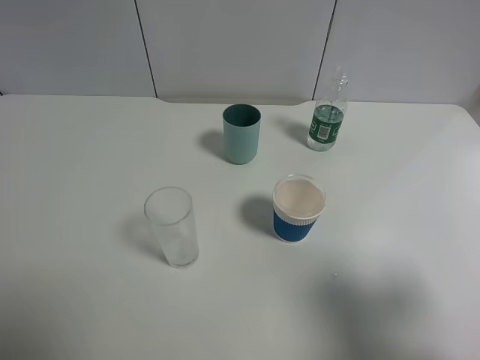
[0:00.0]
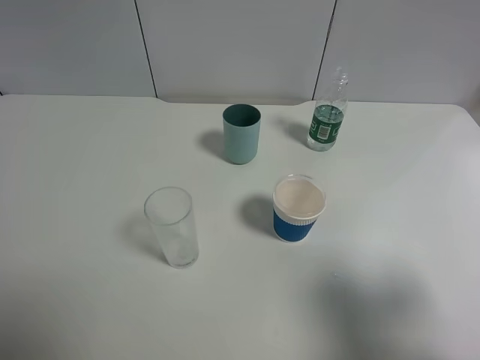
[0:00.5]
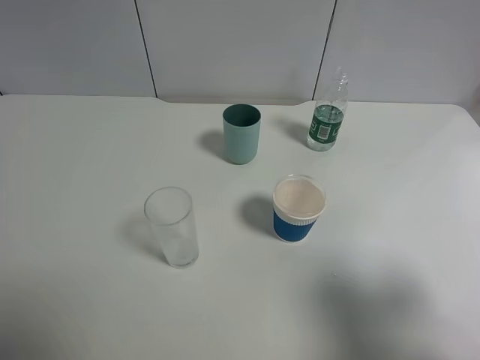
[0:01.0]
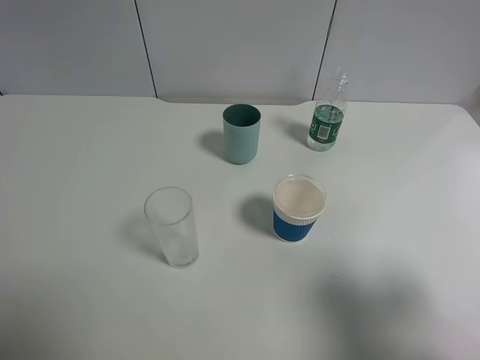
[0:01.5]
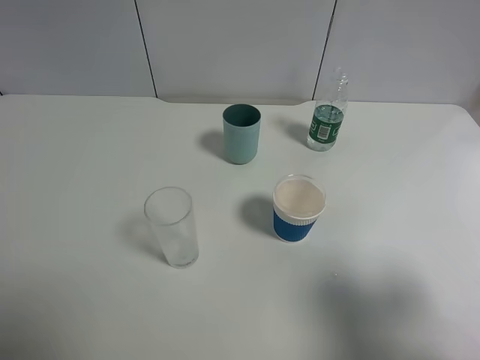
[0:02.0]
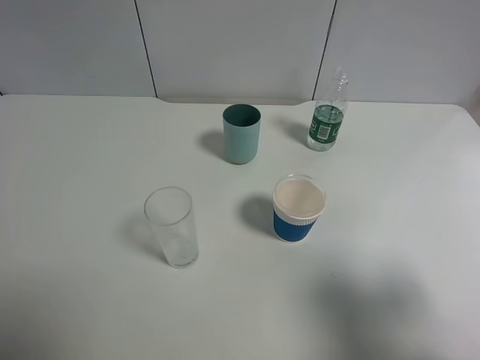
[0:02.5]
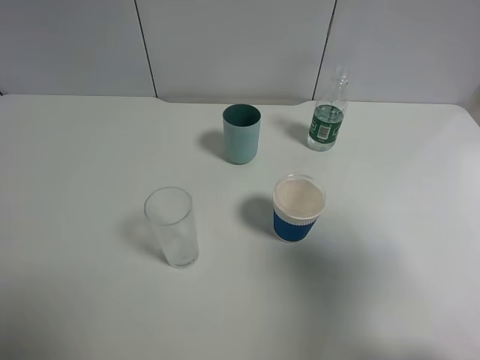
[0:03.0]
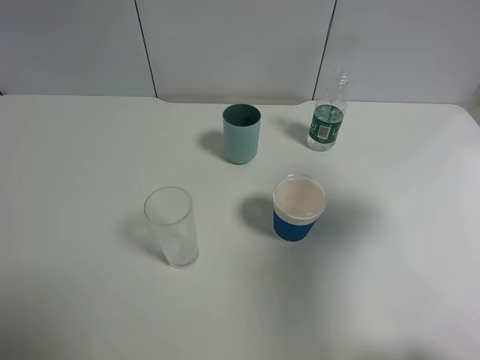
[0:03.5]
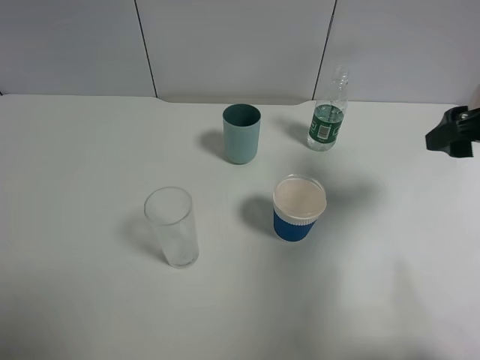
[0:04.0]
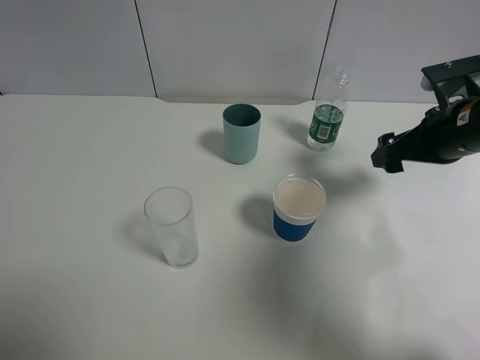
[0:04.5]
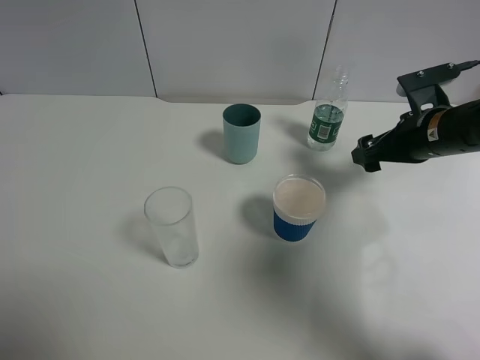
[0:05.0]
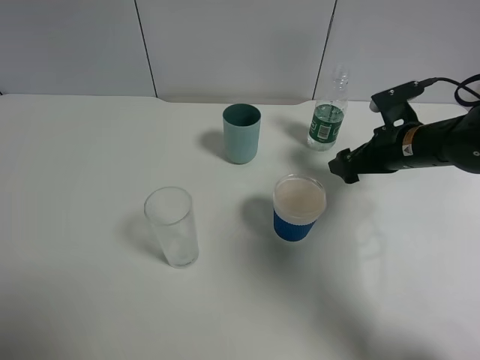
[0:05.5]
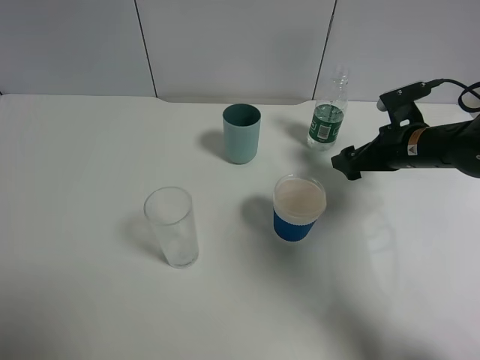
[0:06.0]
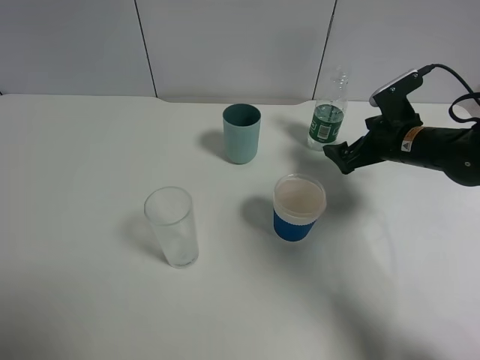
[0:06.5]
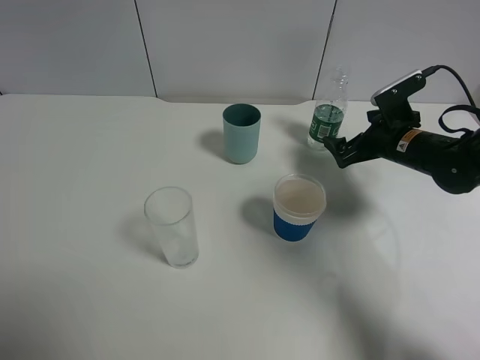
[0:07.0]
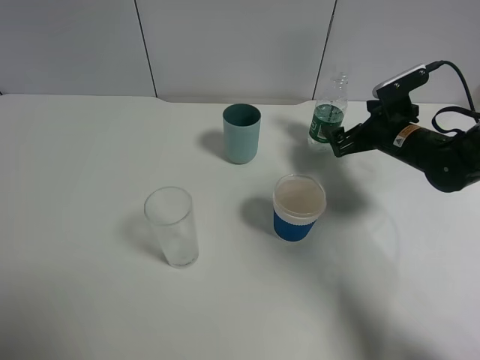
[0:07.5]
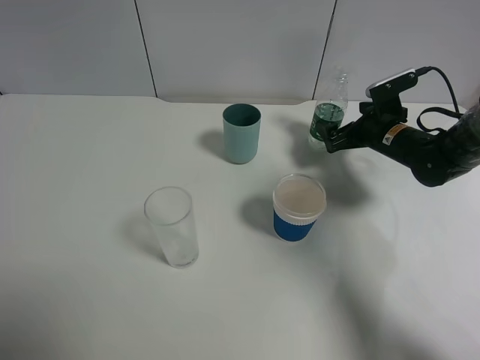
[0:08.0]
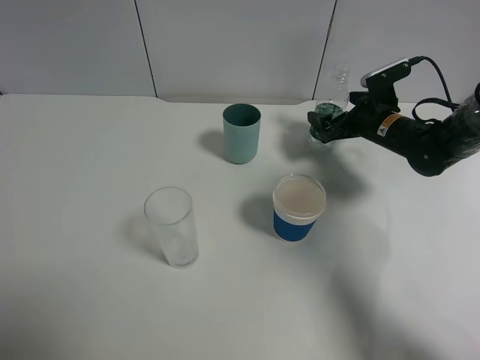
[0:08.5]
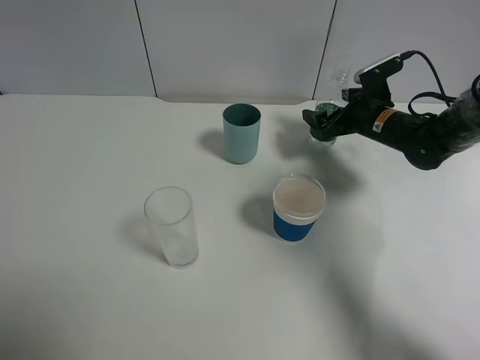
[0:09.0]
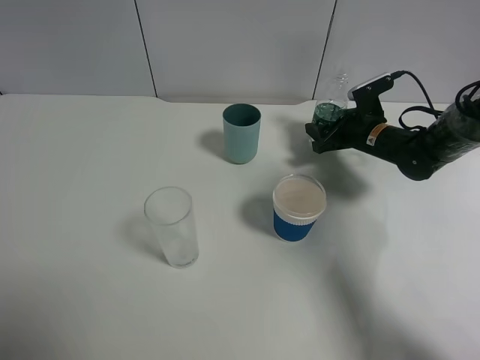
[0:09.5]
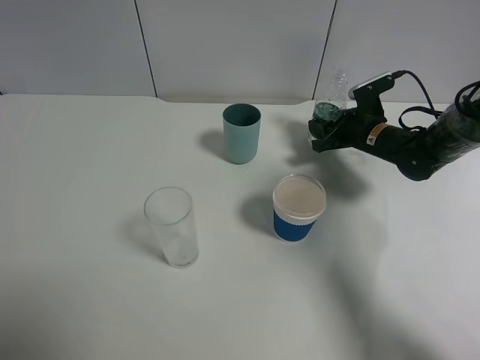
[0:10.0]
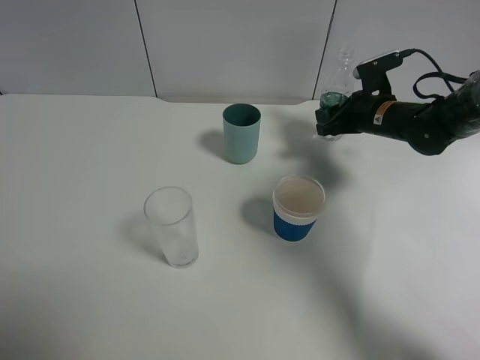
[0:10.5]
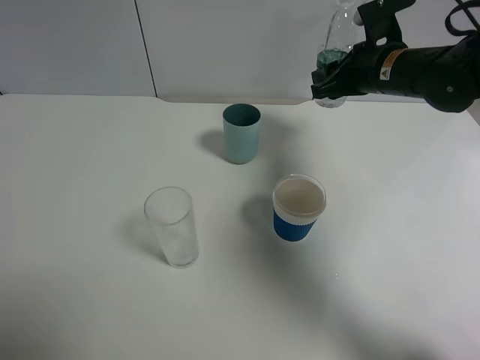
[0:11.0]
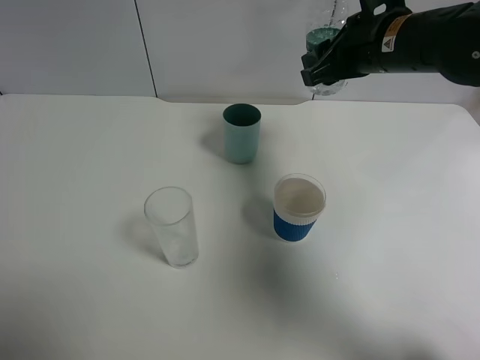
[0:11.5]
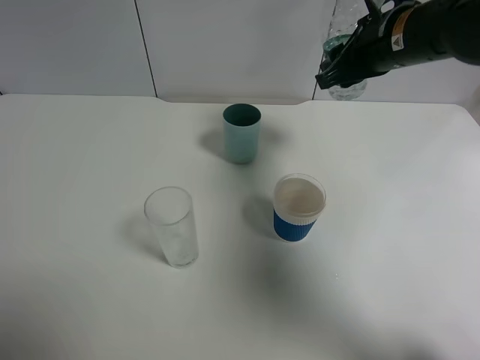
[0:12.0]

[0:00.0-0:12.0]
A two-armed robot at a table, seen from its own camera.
Task of the whole recording: use a gripper to hold the bottle of the drink and pour it into a random cup.
Step, 0.0 to 9.5 s: Grasp the mineral water bottle with the right gripper.
0.0 to 2.0 s: Both grippers stay put.
2.0 to 4.0 s: The right gripper moves forward, approximately 20 cm.
4.0 to 6.0 s: The right gripper moves downward and forward, some 20 cm.
6.0 to 8.0 s: The right gripper travels forward by some 5 cm.
8.0 to 10.0 s: The right gripper closes its fingers.
10.0 to 12.0 s: The right gripper goes some 20 cm upward.

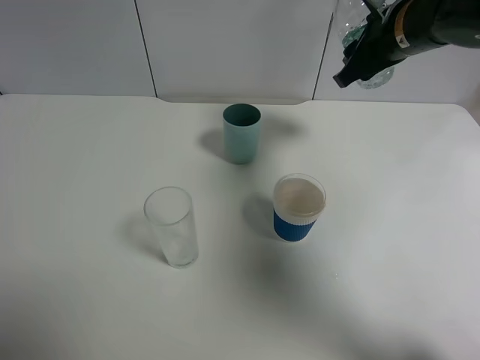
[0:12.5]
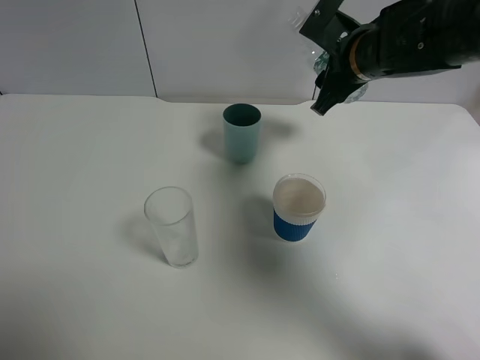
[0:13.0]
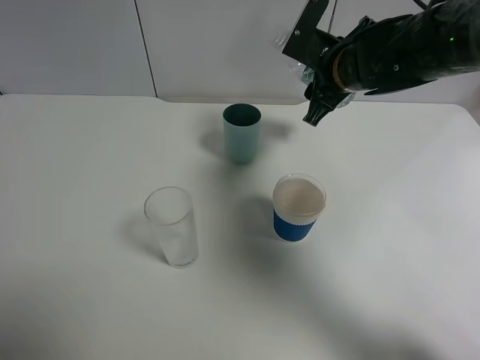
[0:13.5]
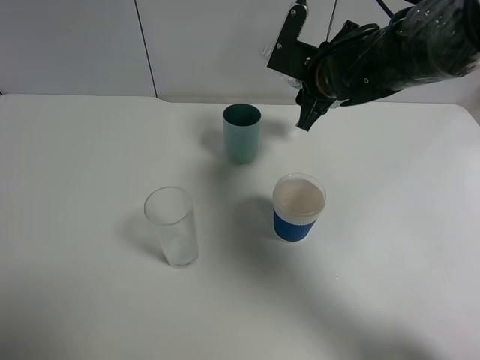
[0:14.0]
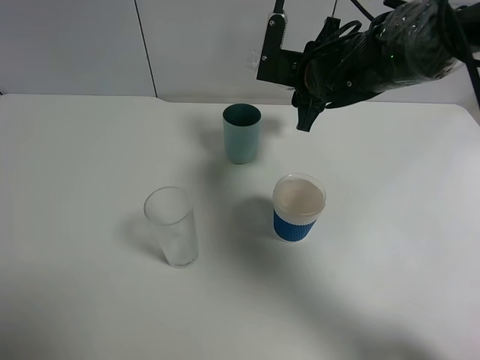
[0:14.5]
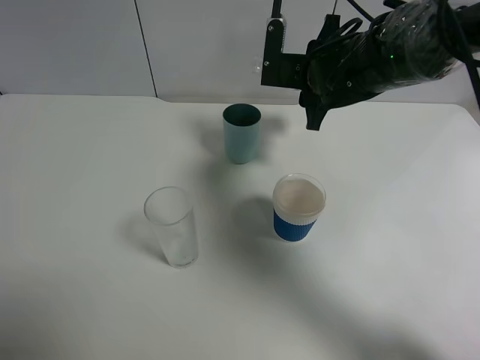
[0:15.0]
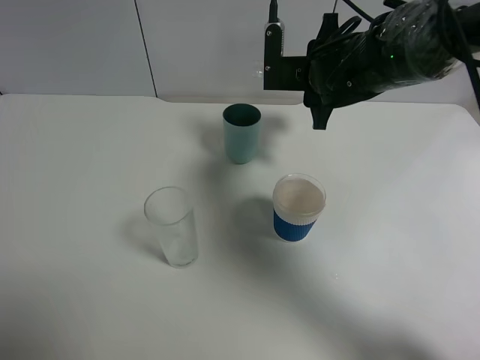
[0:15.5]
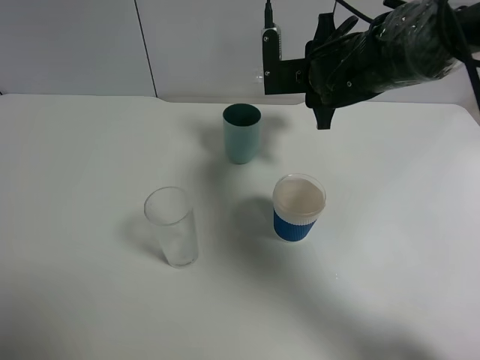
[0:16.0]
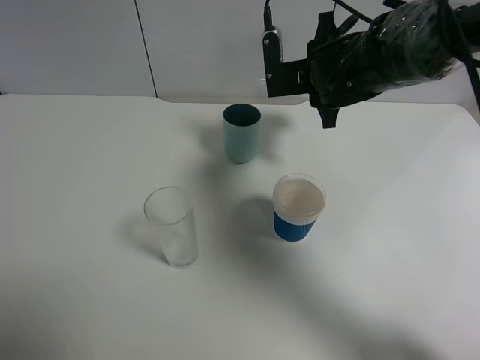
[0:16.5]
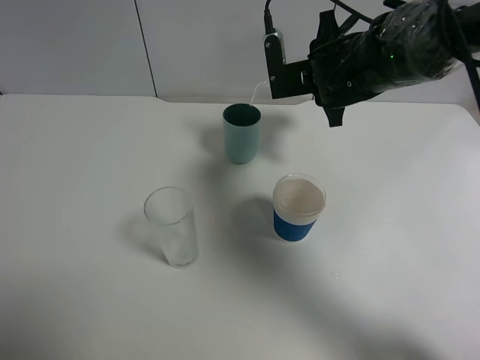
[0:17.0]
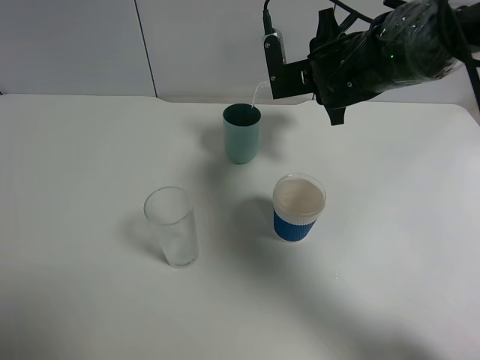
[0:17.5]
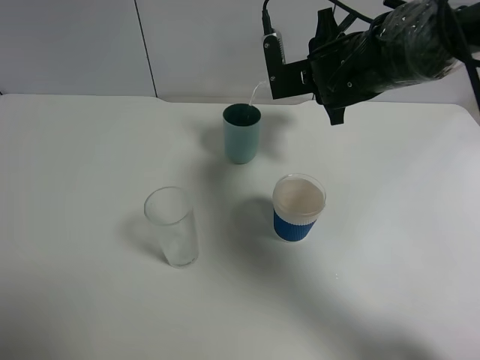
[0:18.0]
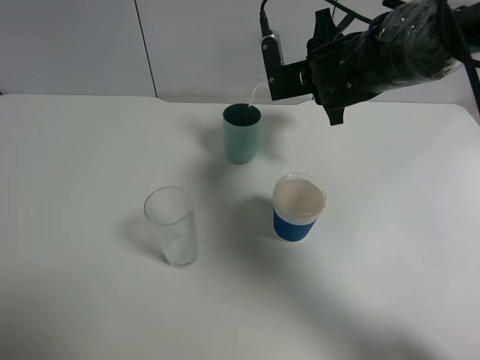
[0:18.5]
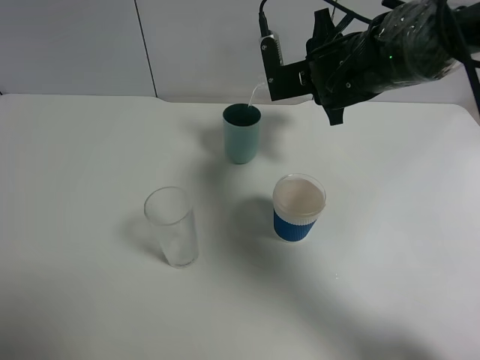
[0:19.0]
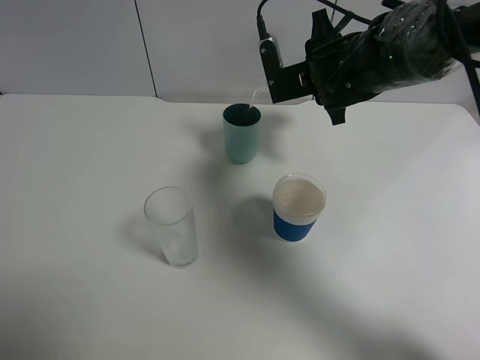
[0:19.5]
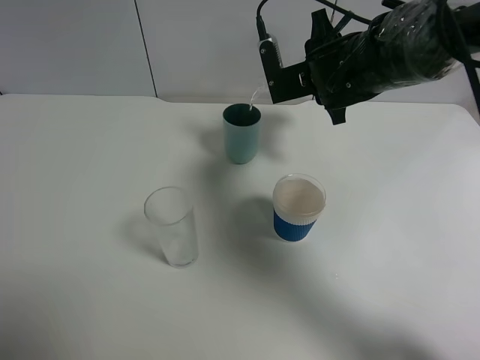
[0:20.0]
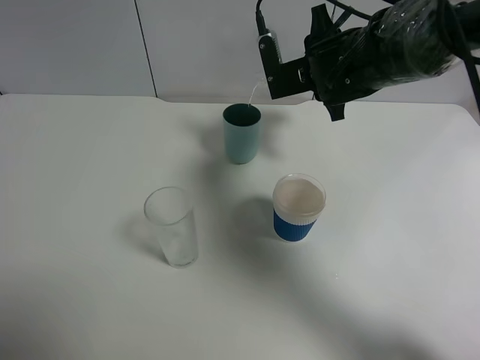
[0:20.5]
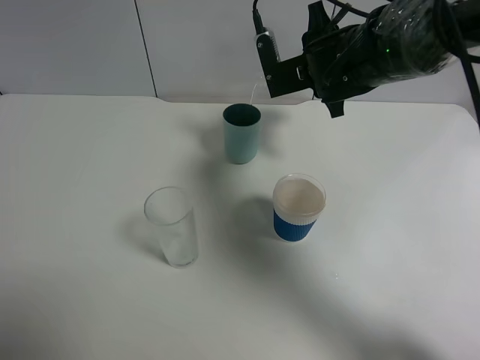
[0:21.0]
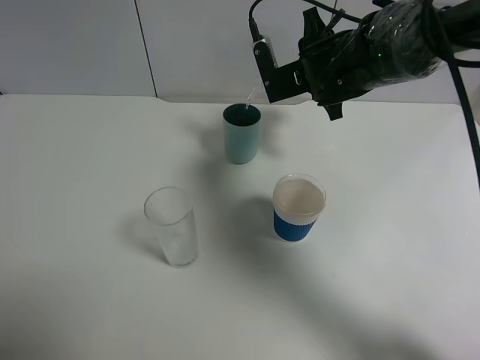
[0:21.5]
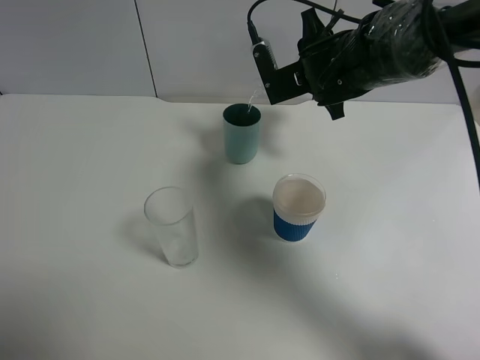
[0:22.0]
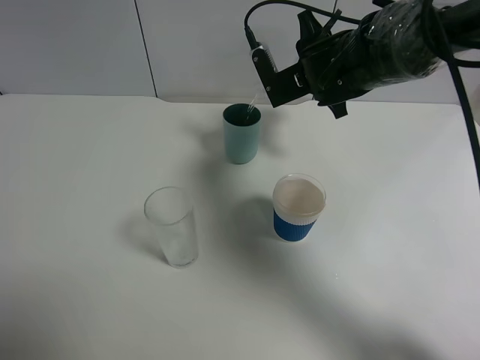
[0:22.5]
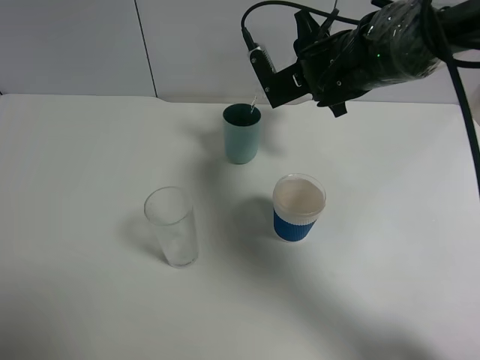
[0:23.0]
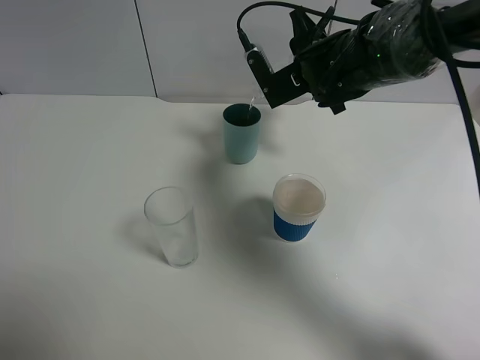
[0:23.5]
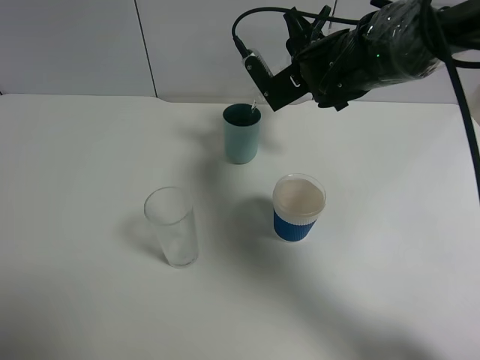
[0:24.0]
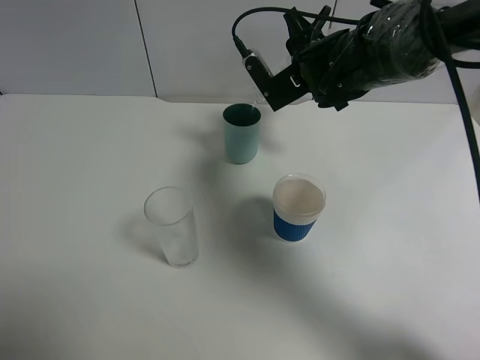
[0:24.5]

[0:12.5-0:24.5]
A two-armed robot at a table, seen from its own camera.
Task of the whole recording: use a gripper to hold the bottle of the drink and pour it into a random cup.
12.5 to 14.5 s: The right gripper moves to the left and downward, approximately 10 cm.
14.5 to 16.5 s: The grippers stay close to where they were, moving slightly.
16.5 to 18.5 s: The grippers make only small movements.
18.5 to 20.5 s: Neither gripper changes place.
20.5 to 24.5 s: The grippers stay close to where they were, moving slightly.

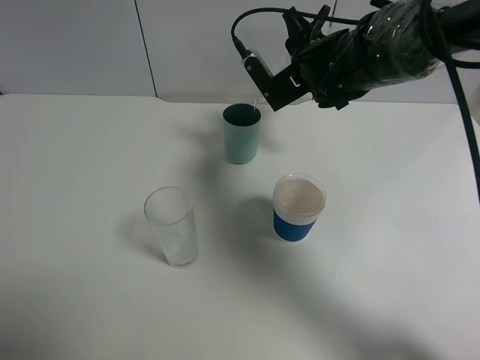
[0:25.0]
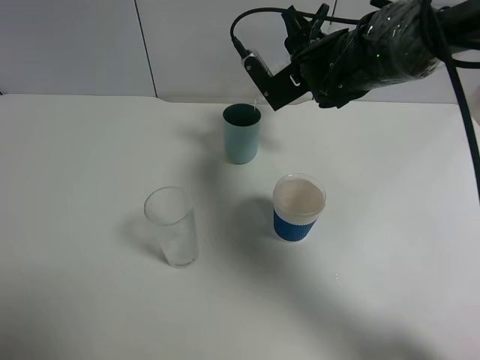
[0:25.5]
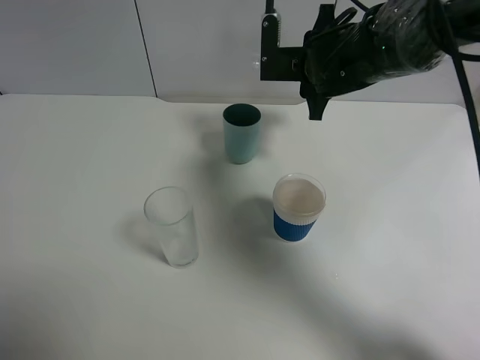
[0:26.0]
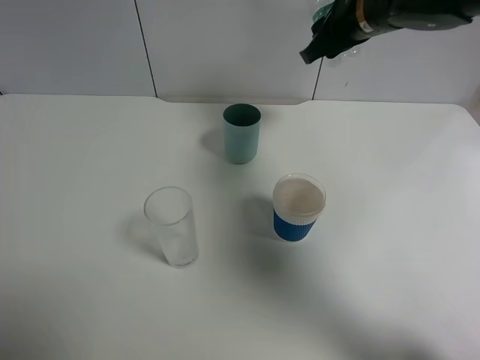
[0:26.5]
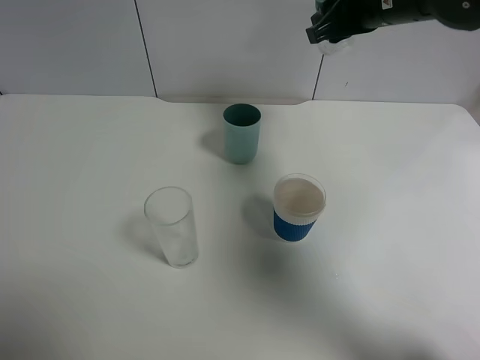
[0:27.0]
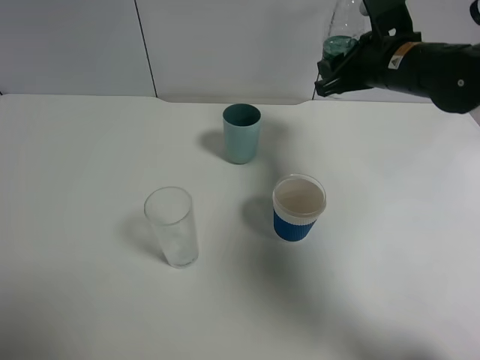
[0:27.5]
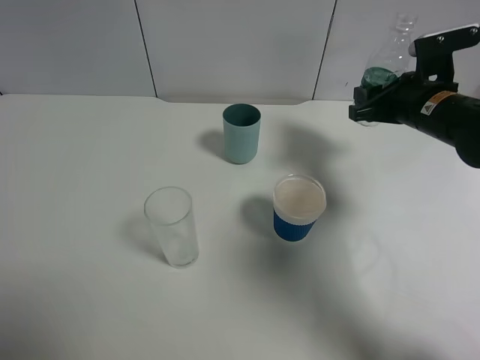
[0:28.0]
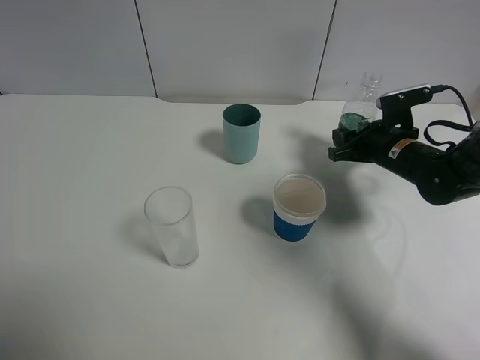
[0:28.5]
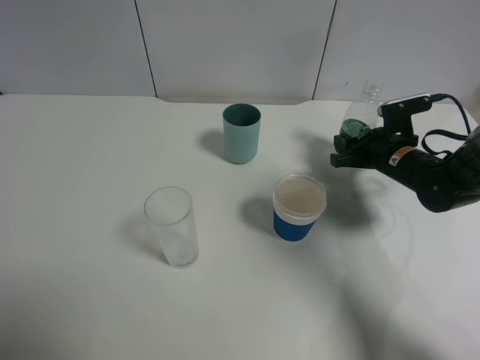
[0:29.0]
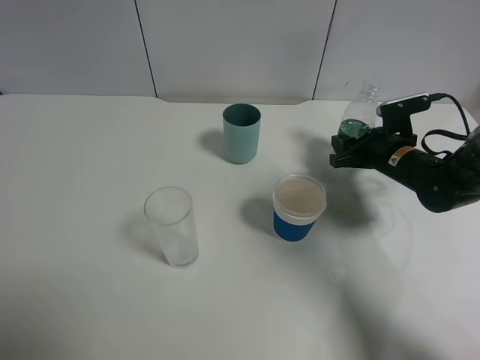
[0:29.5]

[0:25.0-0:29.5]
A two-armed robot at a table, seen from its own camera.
Task of the whole recording: use a gripper to hold the bottle of the drink and pour it into a random cup.
25.0 to 27.0 s: The right gripper goes roughly 10 cm upward and to the right.
27.0 to 29.5 s: The right gripper heads downward and to the right, covering approximately 25 cm.
